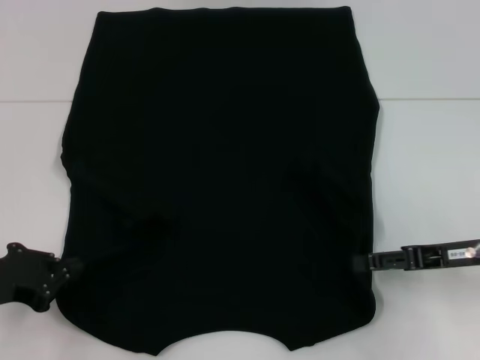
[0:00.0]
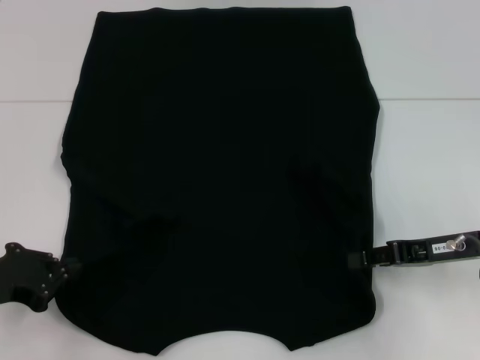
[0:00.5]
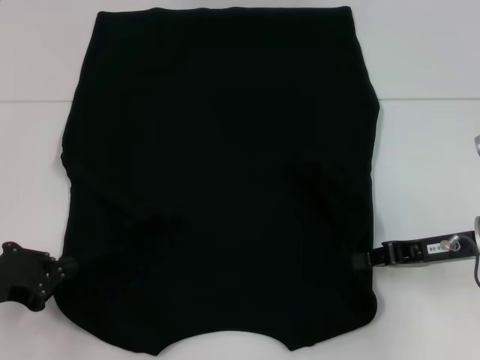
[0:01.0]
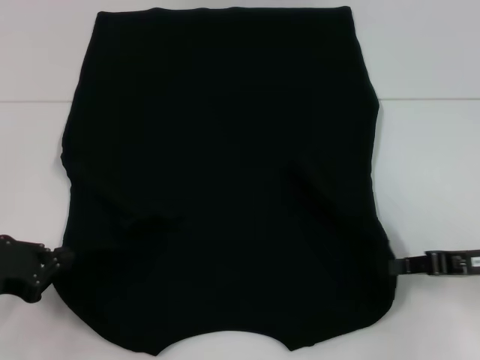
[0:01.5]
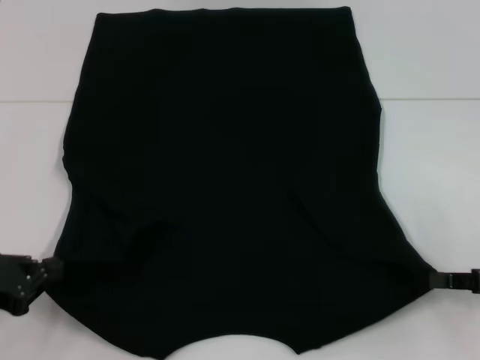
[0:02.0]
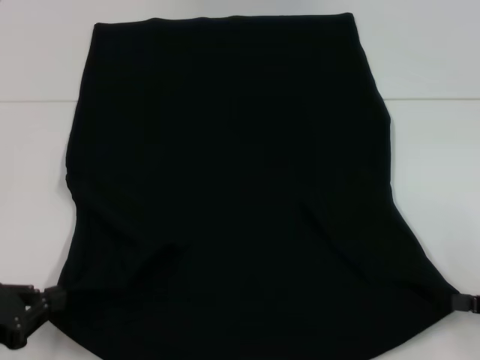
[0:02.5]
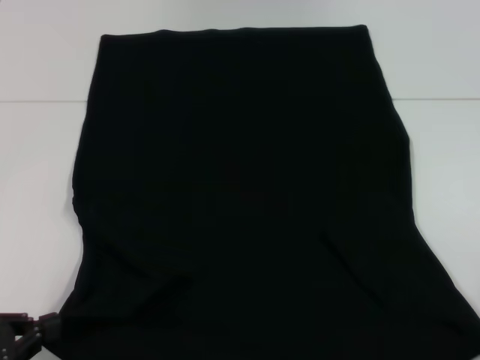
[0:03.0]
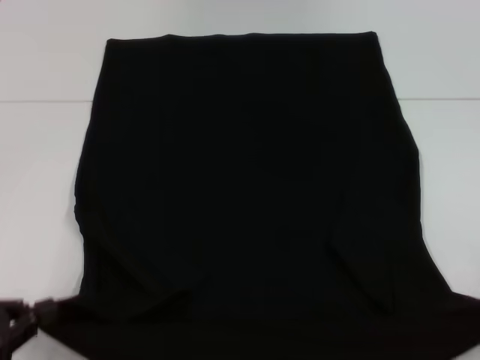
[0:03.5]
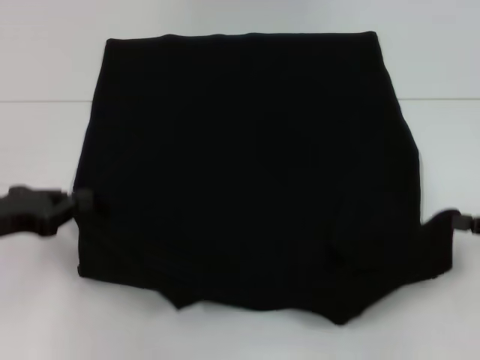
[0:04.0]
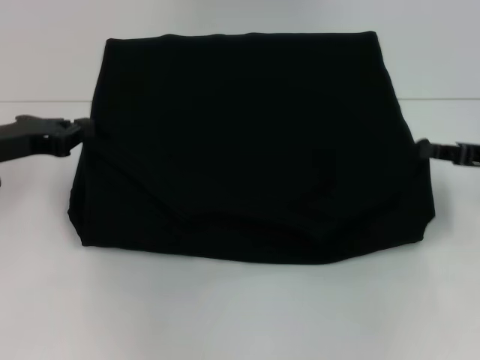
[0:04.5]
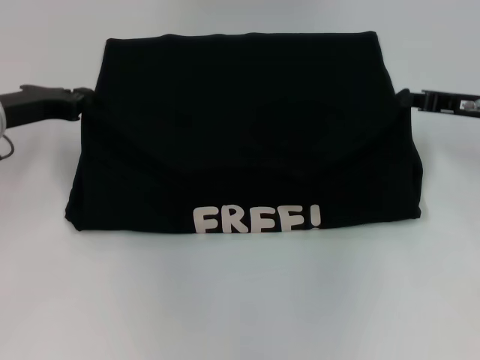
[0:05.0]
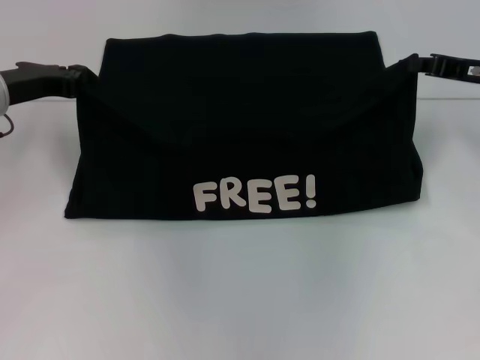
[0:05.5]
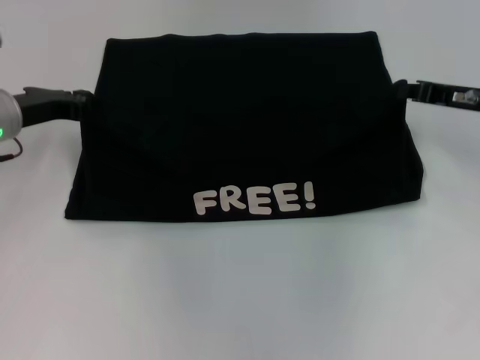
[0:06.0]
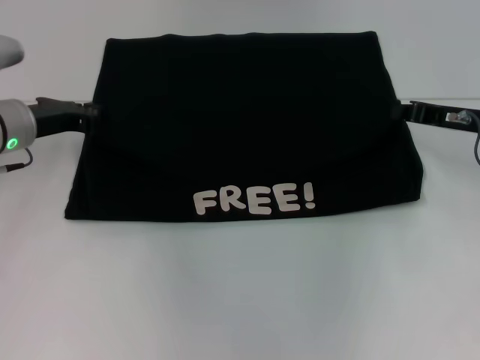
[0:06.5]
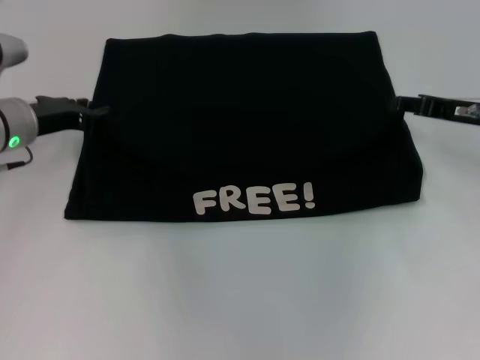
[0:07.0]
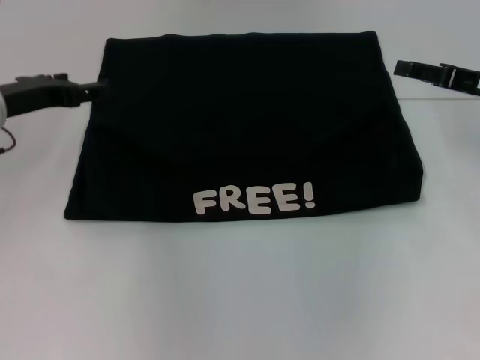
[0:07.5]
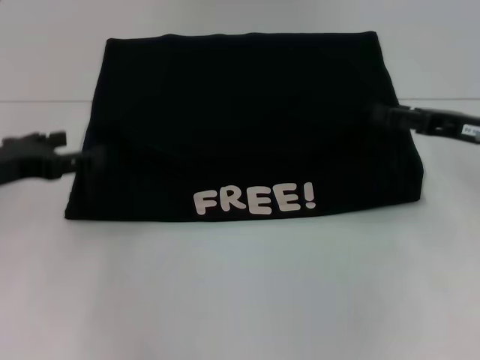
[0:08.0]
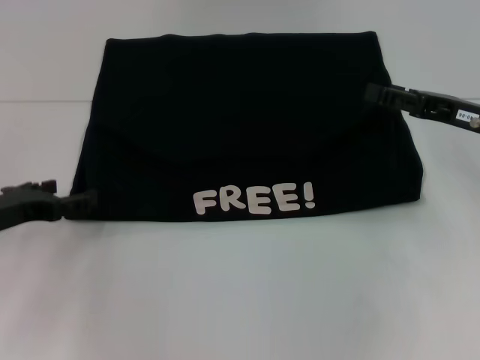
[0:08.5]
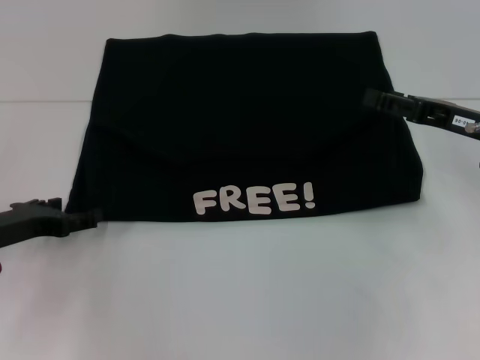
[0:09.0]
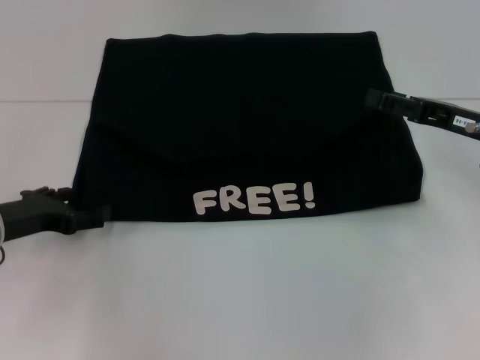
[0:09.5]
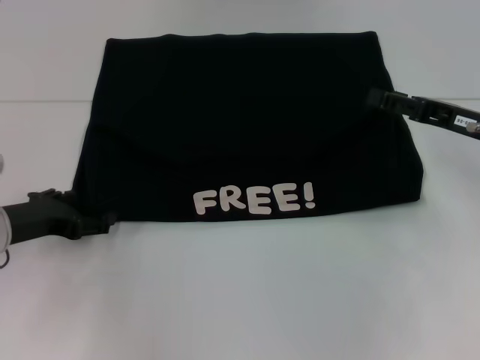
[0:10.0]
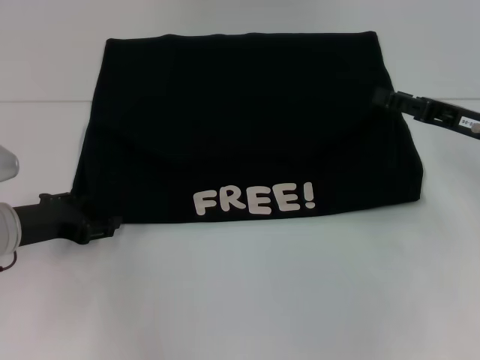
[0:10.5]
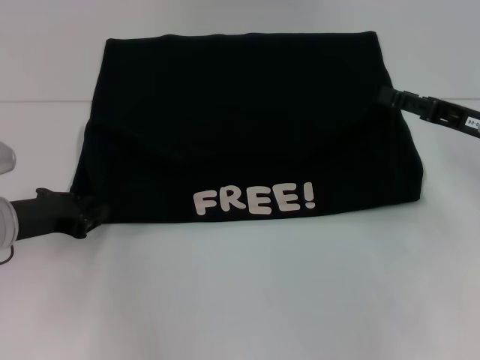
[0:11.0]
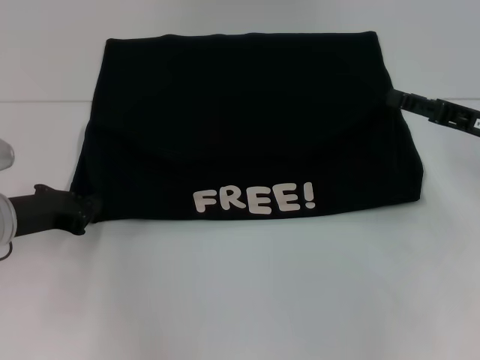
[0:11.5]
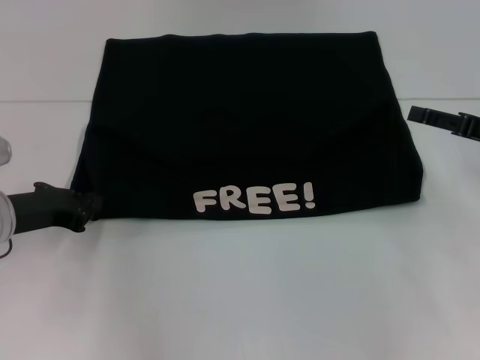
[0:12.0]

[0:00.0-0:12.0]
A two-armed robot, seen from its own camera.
Step, 0:02.0 to 0:06.5: Fold the clothes with your left hand.
Step, 0:02.0 to 0:06.5: Fold the clothes with your right hand.
0:00.0 to 0:02.0: The right gripper goes approximately 5 cm to the right, and closes.
0:02.0 to 0:04.0: The right gripper moves about 10 cm backward and comes back. The left gripper moves forward, about 5 cm.
0:04.0 to 0:06.0: The right gripper is displaced forward and to the left by roughly 15 cm; the left gripper travels forward by approximately 15 cm.
0:06.0 to 0:08.0: The right gripper moves backward, about 5 cm, and opens, while the left gripper moves backward, roughly 10 cm, and opens up.
0:08.0 to 0:10.0: The left gripper goes about 5 cm downward.
0:10.0 to 0:12.0: The left gripper closes up.

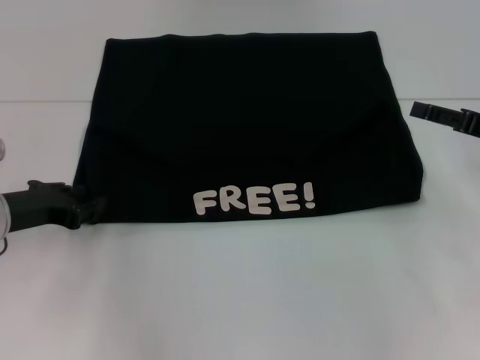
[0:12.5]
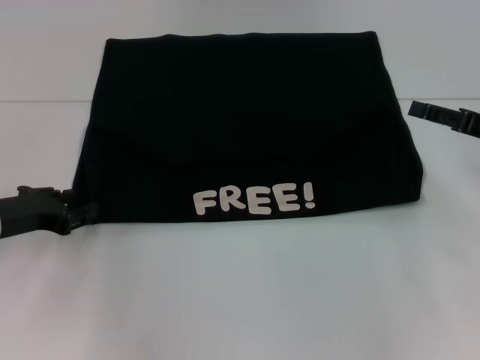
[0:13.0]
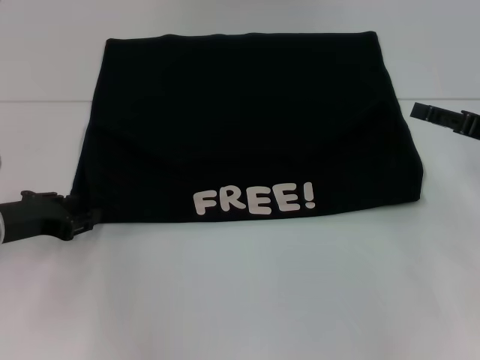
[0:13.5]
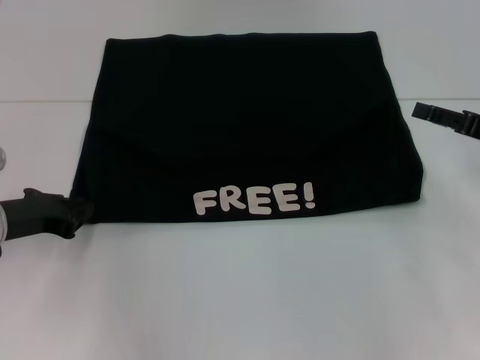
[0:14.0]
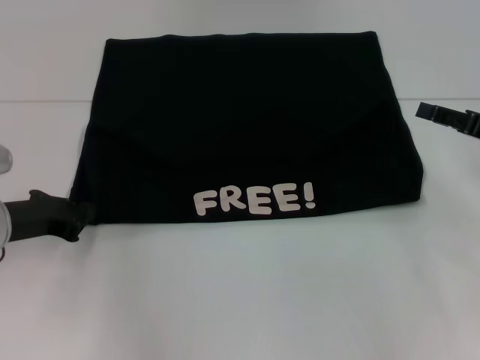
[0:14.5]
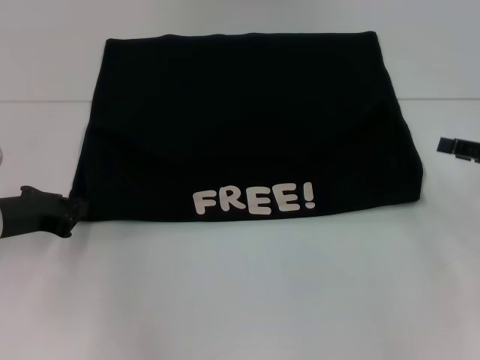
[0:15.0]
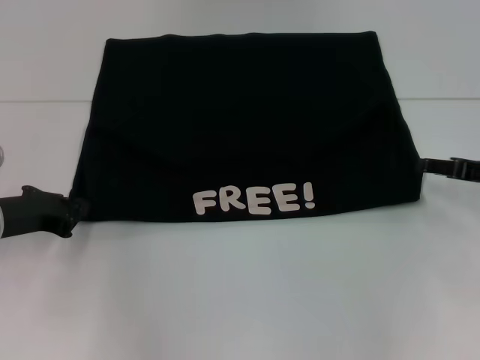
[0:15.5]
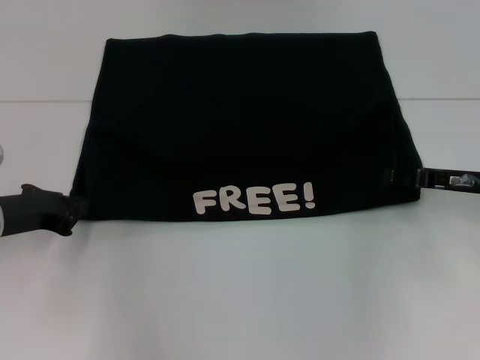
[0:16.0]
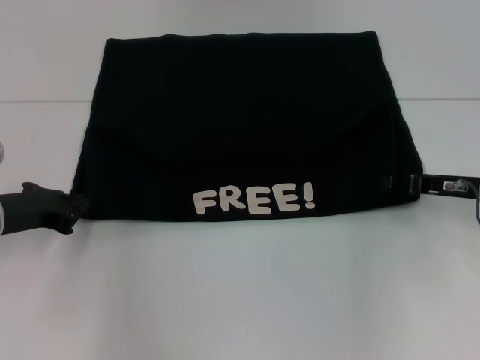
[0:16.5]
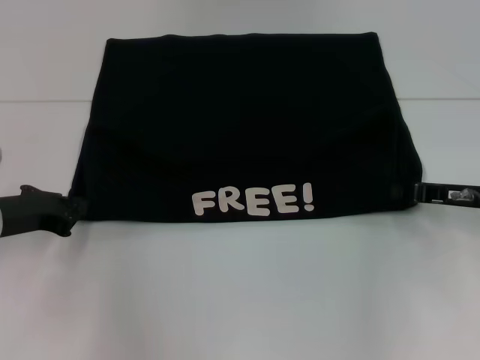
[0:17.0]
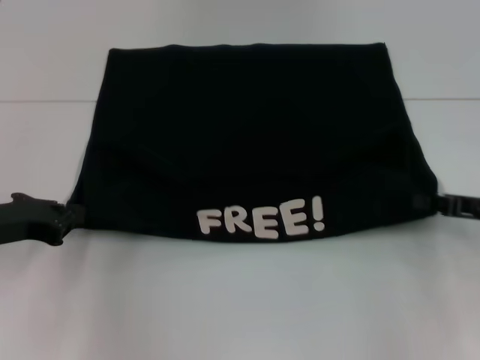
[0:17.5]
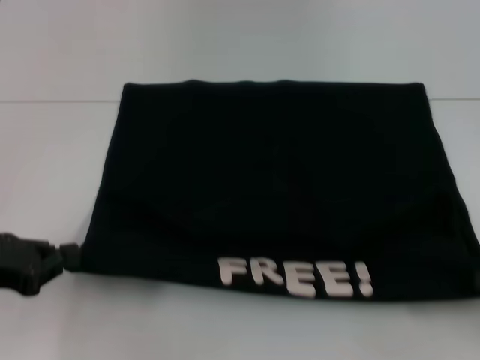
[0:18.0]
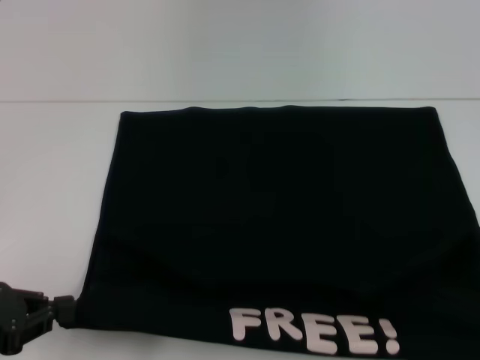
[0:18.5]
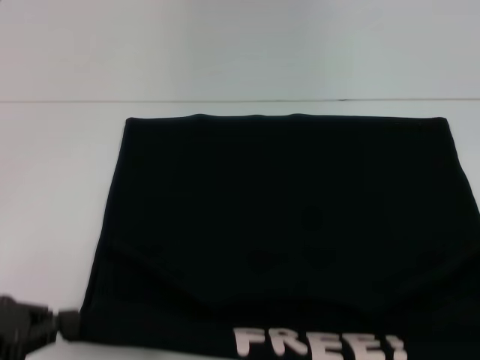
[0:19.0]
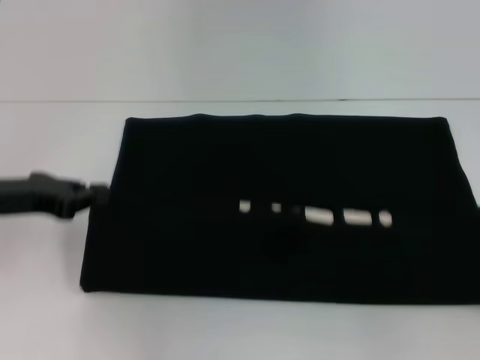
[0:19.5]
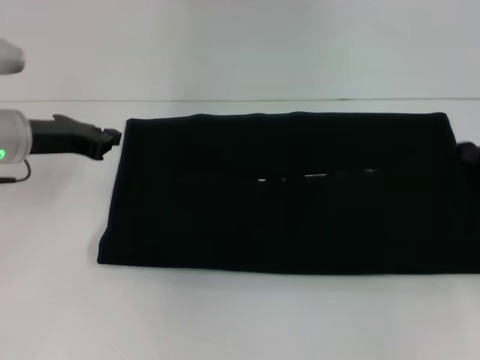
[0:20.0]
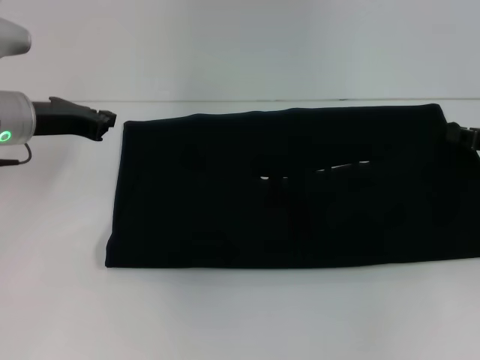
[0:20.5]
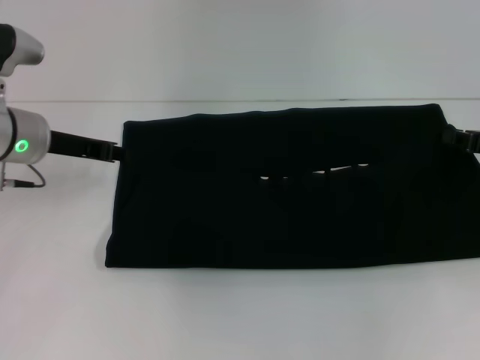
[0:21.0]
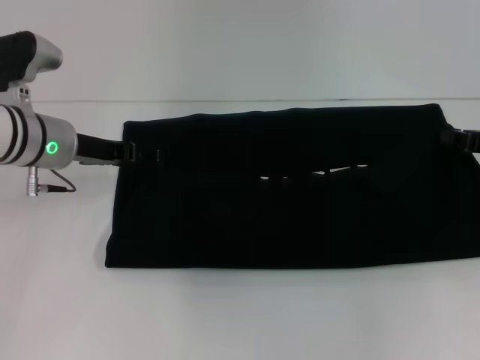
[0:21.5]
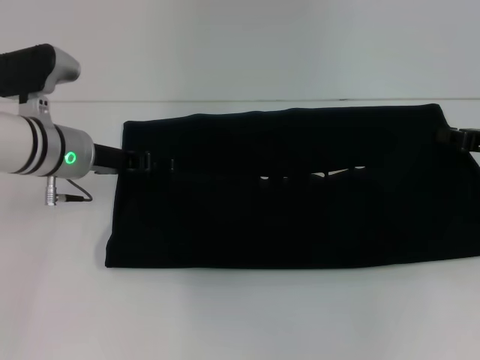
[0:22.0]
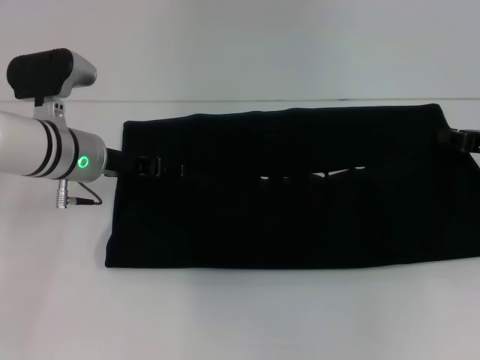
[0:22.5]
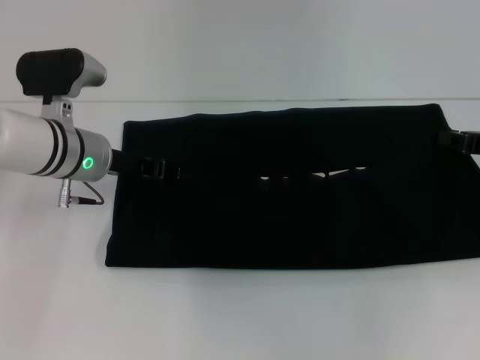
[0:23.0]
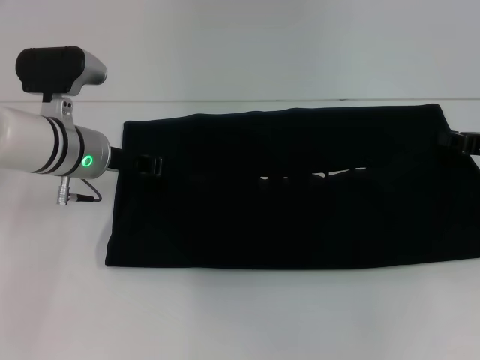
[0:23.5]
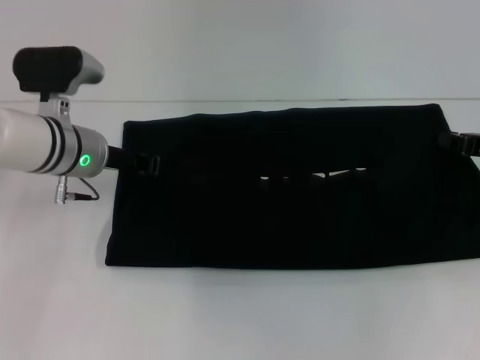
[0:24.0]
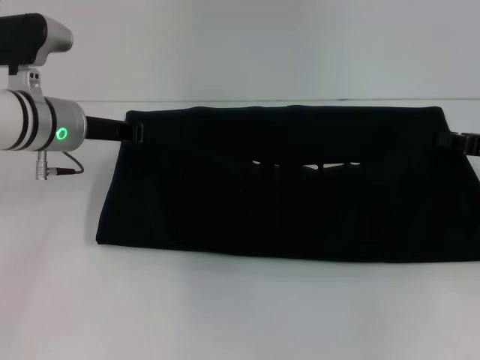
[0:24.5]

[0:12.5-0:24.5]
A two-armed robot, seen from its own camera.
Step, 0:12.5 to 0:18.5: Pull the clothes with your left hand.
Step, 0:12.5 to 0:18.5: Pull the clothes with your right hand.
0:12.5 to 0:14.5: The two grippers keep their place.
0:14.5 to 0:16.5: The right gripper ends up roughly 5 cm from where it was.
0:16.5 to 0:18.5: The left gripper goes some 10 cm backward; the right gripper heads backward and to the right, covering some 25 cm, and closes up.
0:18.5 to 0:20.5: The two grippers go about 20 cm forward.
0:20.5 to 0:22.5: The left gripper heads to the right, covering about 5 cm, and opens.
0:22.5 to 0:24.5: The left gripper closes up.

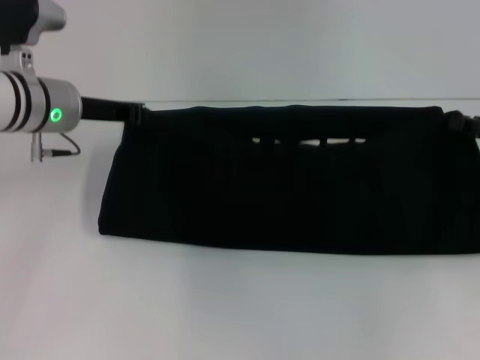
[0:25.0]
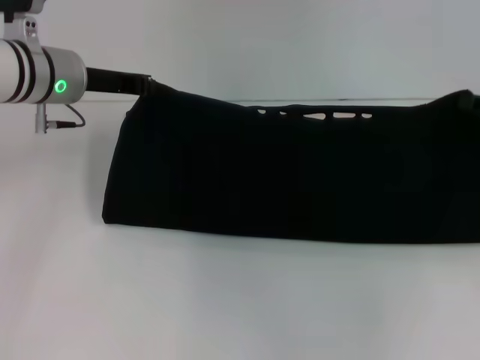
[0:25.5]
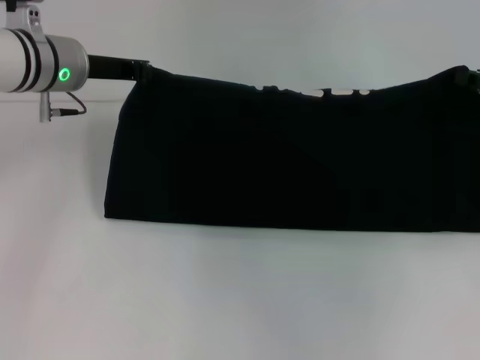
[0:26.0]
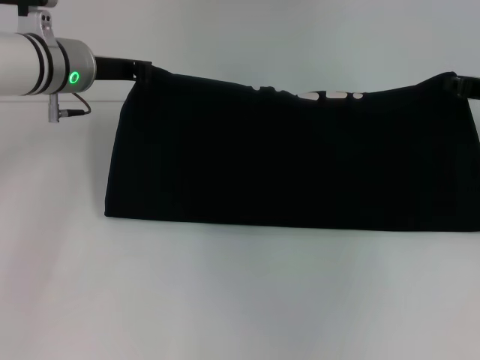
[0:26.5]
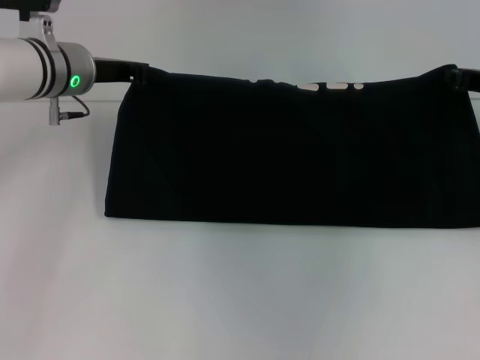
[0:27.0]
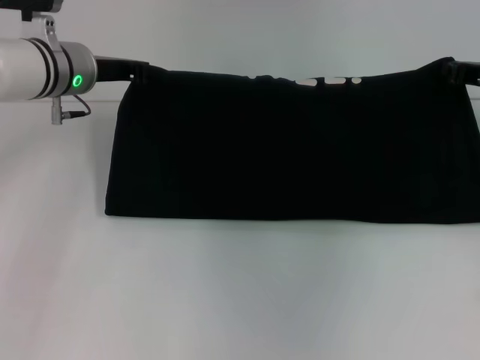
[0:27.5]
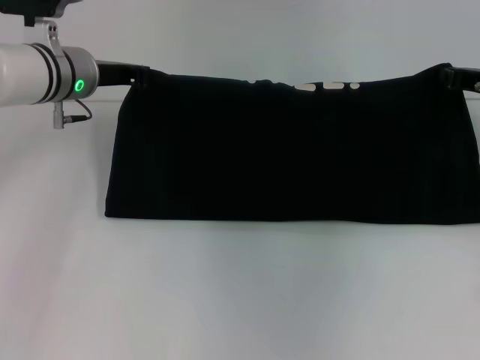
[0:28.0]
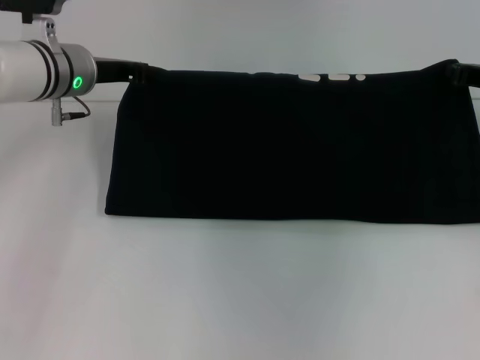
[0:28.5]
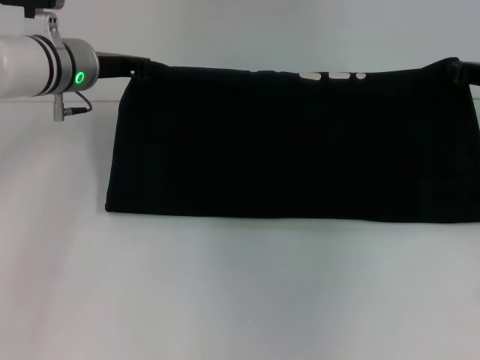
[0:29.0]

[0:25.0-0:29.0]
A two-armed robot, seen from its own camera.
0:25.0 to 0:27.0: The right gripper heads forward, covering about 5 cm.
0:27.0 to 0:29.0: Both grippers stay about where they are.
